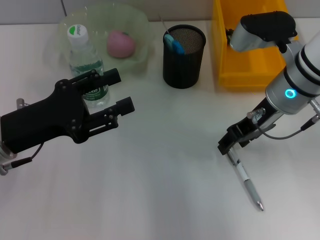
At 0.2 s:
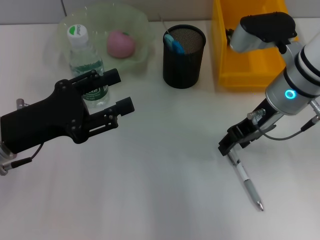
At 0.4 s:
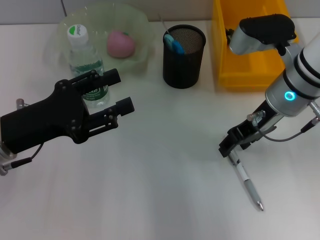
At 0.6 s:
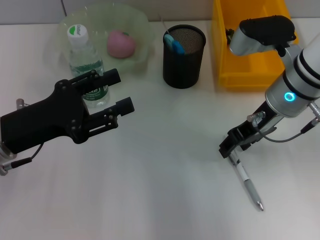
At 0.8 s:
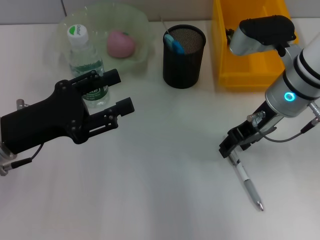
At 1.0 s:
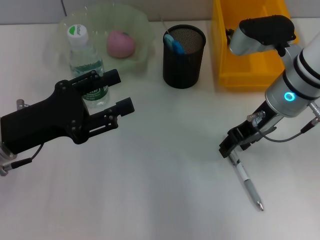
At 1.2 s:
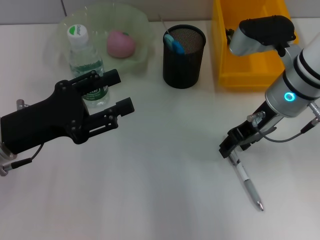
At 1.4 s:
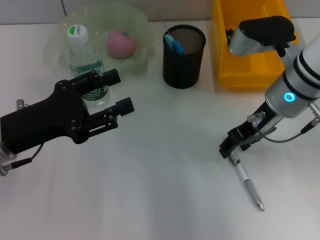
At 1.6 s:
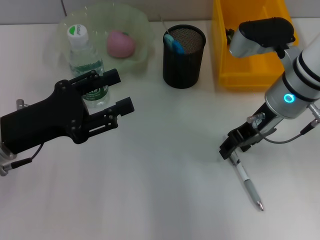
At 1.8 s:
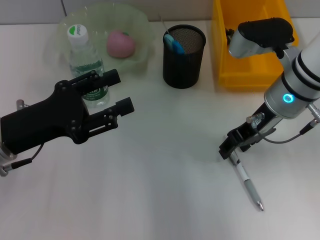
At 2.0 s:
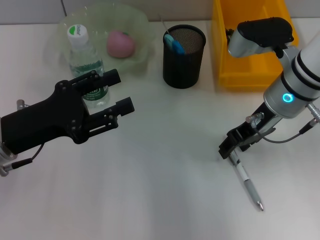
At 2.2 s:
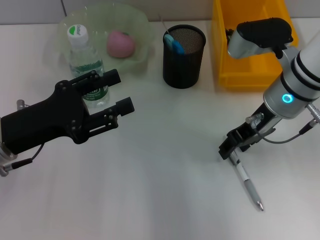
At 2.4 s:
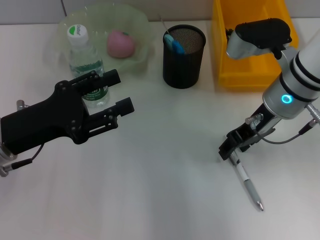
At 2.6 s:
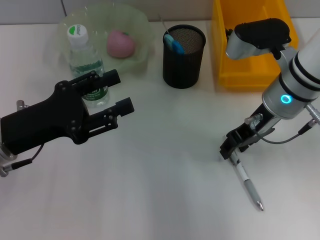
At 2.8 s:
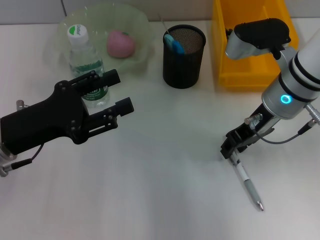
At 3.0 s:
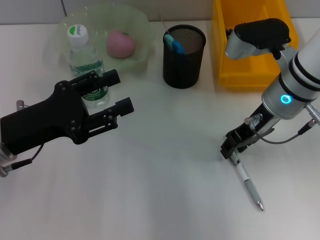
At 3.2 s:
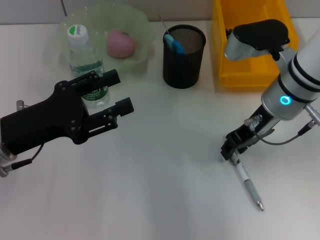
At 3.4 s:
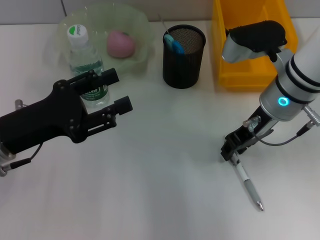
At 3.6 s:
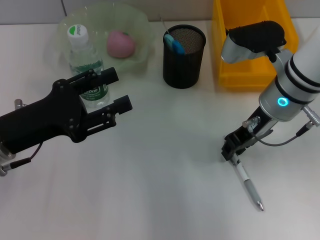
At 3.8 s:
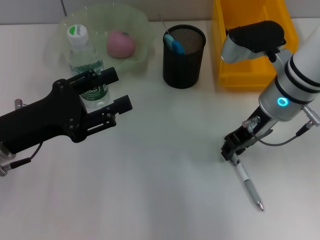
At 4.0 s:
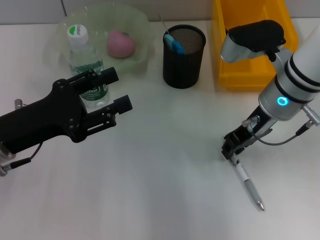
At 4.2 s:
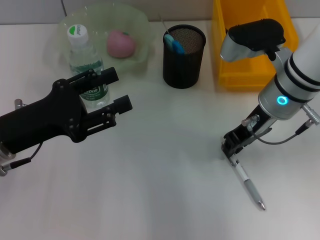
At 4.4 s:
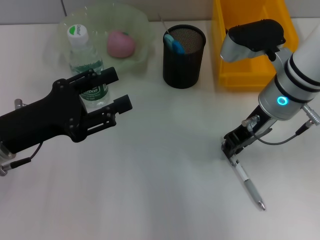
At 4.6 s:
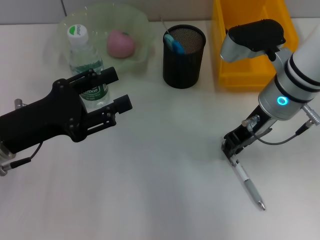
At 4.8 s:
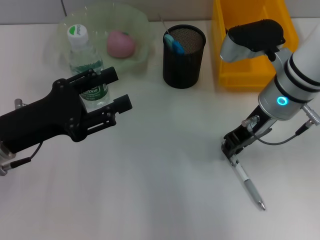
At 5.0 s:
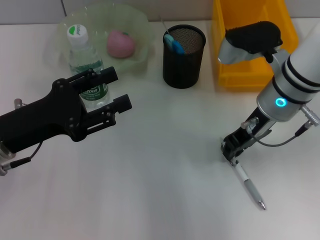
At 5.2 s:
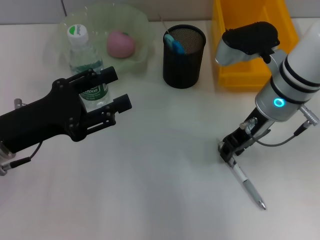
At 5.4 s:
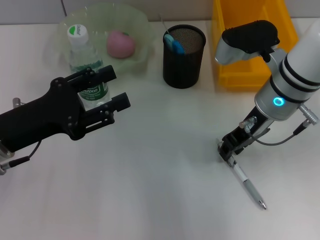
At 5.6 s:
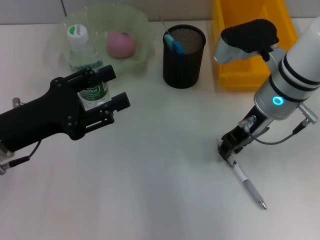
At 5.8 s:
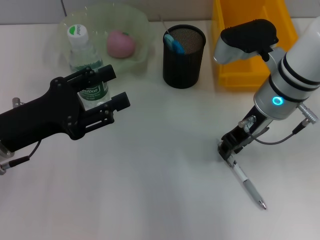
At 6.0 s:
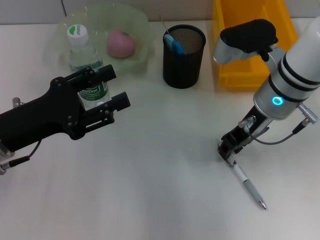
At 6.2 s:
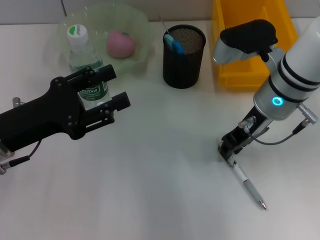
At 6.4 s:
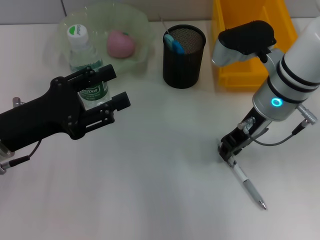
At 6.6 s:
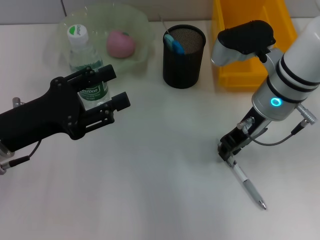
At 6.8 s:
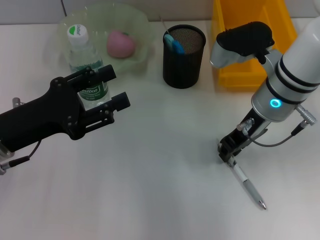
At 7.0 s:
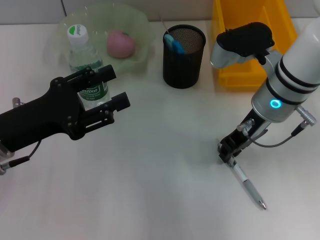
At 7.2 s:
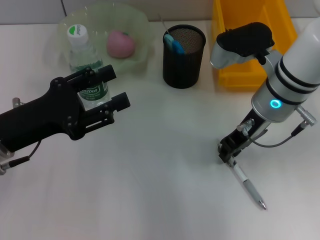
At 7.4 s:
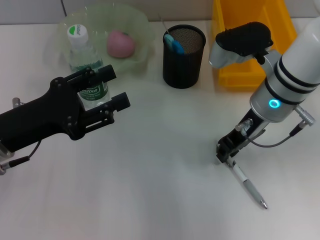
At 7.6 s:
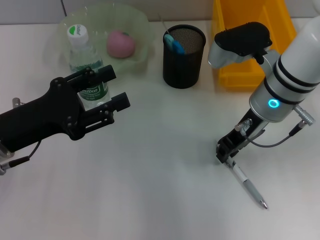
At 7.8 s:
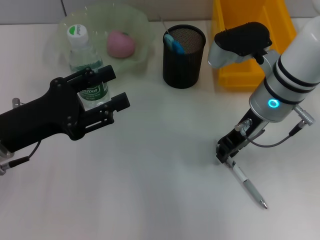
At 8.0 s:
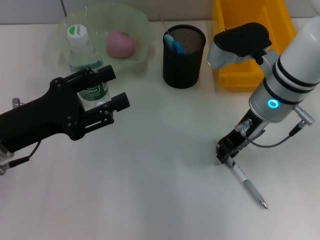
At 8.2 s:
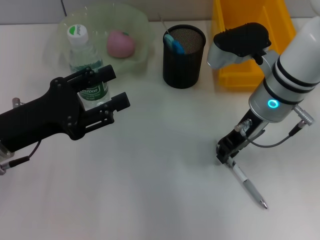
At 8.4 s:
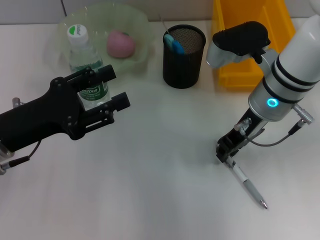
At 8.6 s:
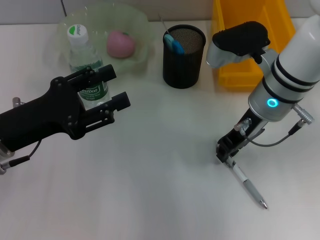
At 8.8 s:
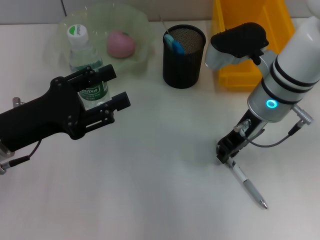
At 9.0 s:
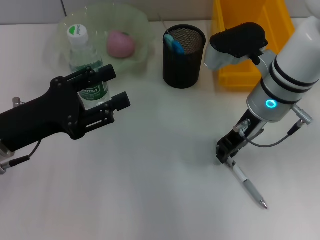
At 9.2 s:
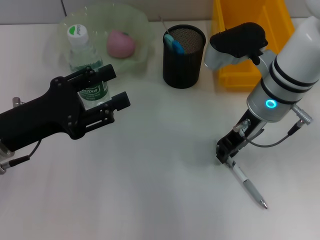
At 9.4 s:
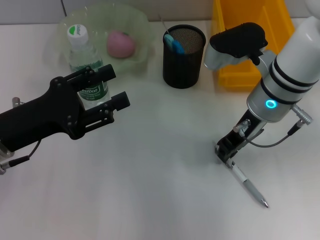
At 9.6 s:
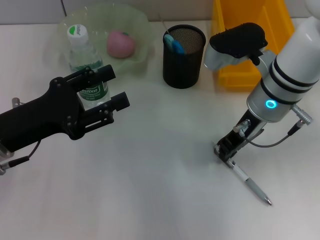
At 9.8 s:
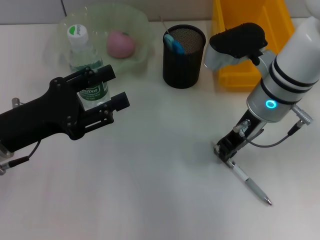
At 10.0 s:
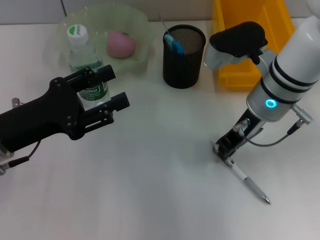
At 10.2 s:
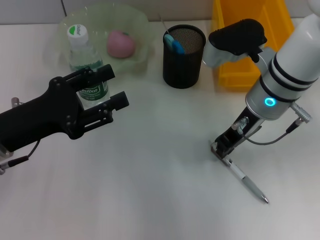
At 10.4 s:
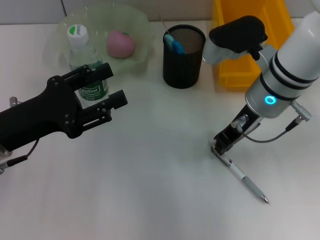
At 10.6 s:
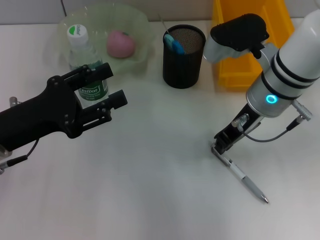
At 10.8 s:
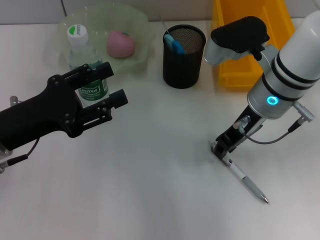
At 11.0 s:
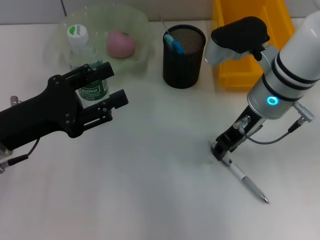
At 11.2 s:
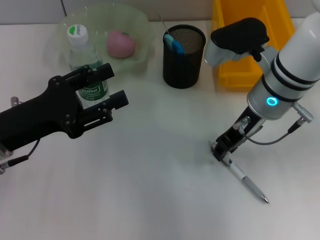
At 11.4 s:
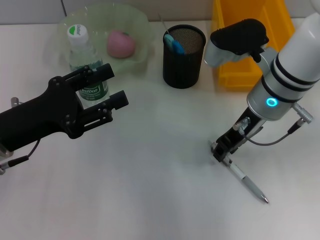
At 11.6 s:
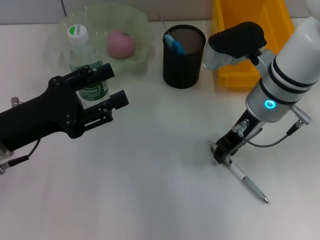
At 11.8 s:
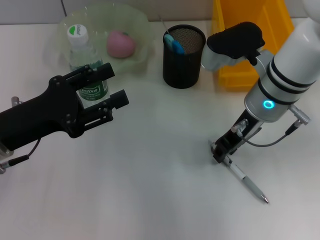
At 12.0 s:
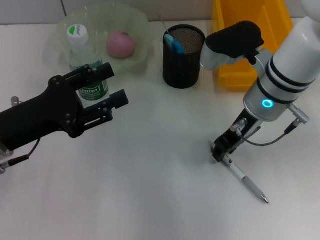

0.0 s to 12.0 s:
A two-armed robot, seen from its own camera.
0.0 to 4.4 s: Both grippers stay put.
4.4 to 7.6 s: Both grippers stay put.
7.6 to 10.4 s: Neither gripper changes place.
10.4 to 12.0 s: The right gripper opens.

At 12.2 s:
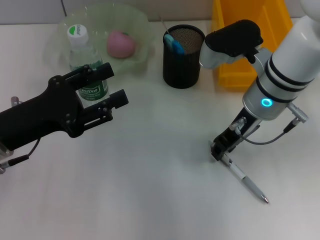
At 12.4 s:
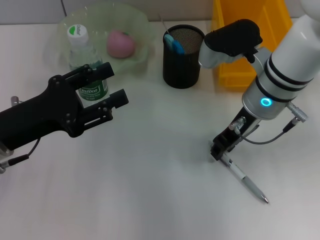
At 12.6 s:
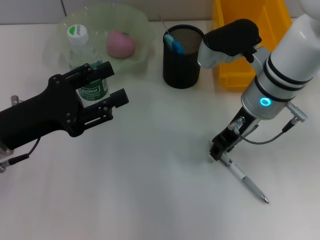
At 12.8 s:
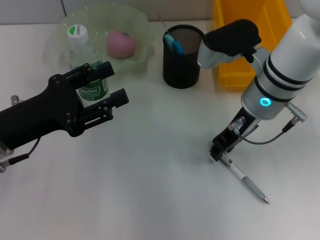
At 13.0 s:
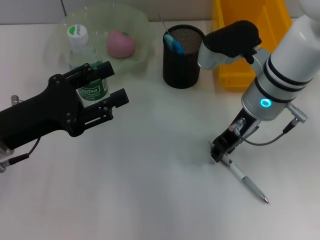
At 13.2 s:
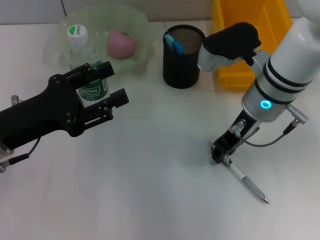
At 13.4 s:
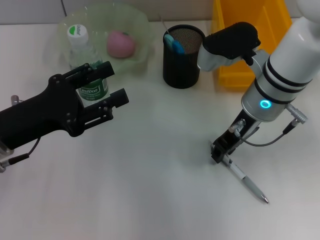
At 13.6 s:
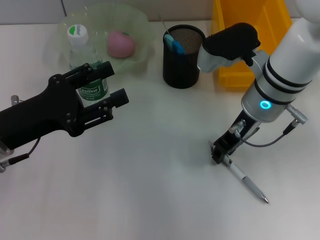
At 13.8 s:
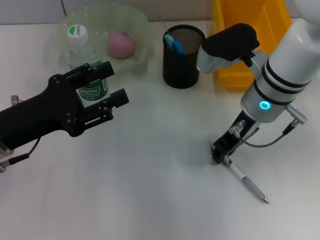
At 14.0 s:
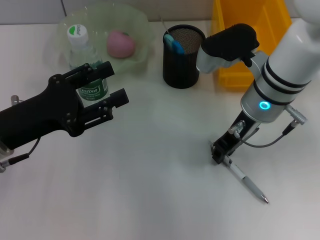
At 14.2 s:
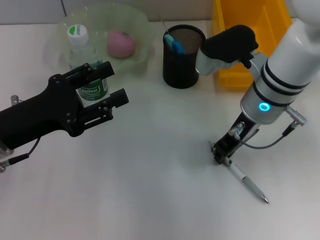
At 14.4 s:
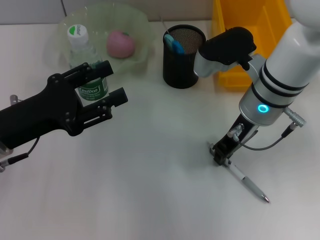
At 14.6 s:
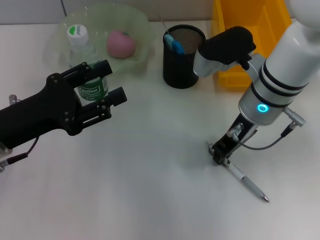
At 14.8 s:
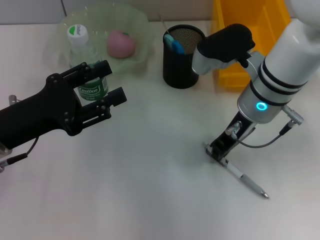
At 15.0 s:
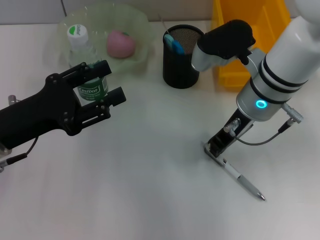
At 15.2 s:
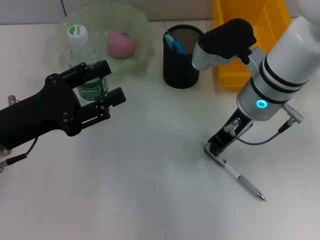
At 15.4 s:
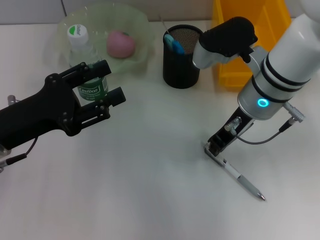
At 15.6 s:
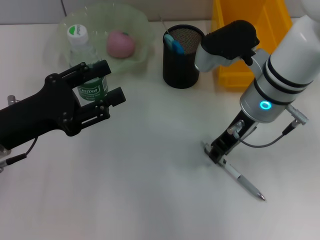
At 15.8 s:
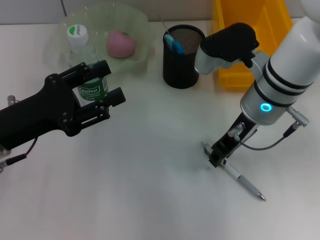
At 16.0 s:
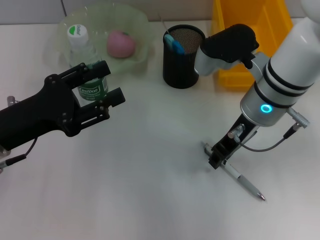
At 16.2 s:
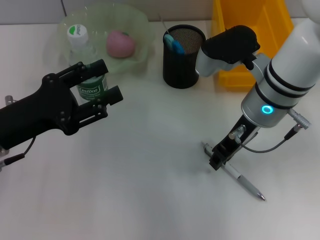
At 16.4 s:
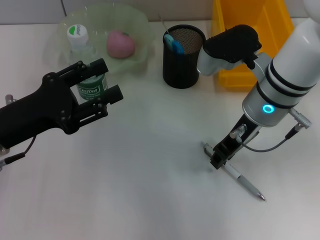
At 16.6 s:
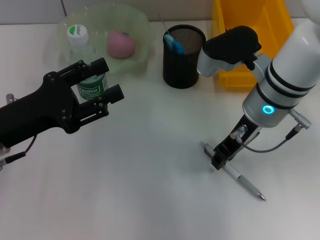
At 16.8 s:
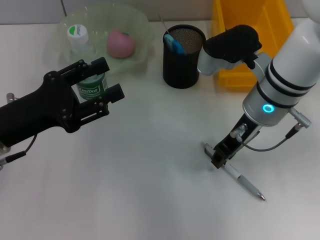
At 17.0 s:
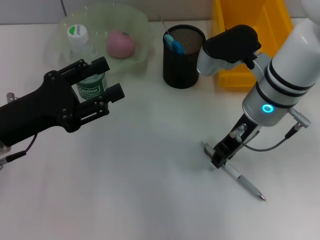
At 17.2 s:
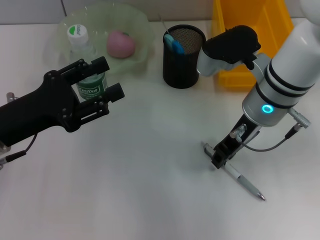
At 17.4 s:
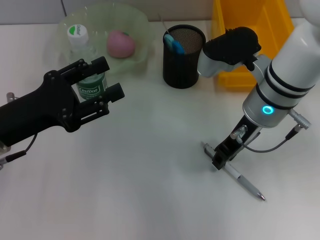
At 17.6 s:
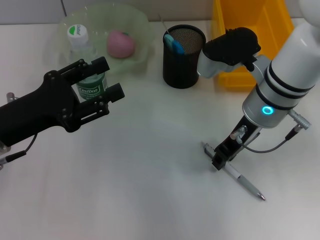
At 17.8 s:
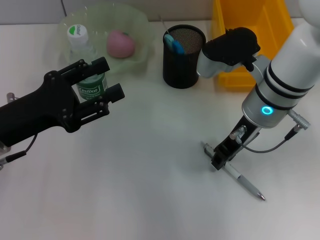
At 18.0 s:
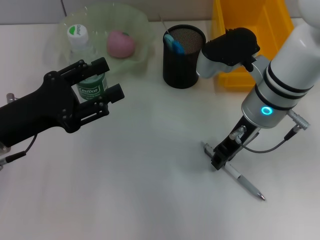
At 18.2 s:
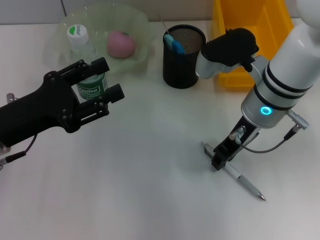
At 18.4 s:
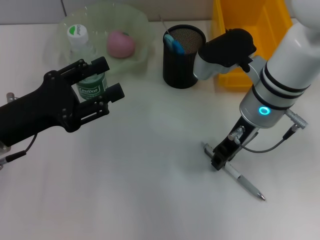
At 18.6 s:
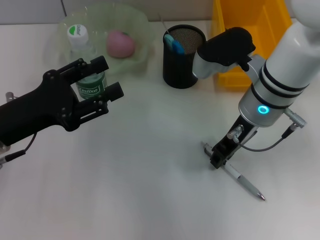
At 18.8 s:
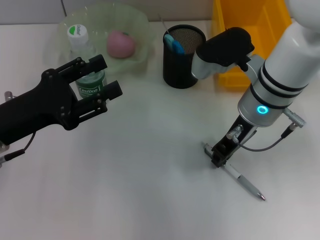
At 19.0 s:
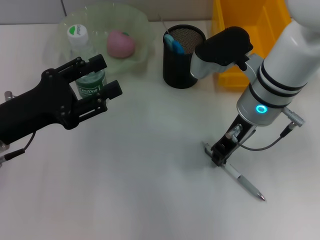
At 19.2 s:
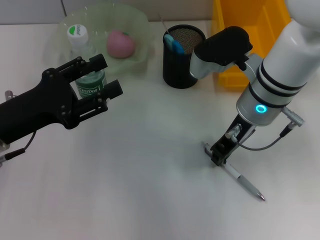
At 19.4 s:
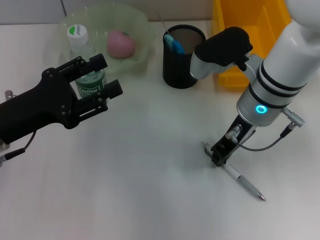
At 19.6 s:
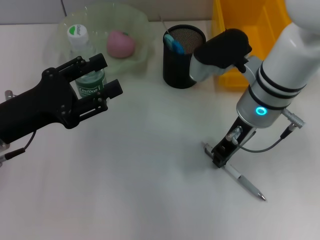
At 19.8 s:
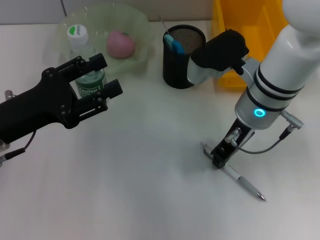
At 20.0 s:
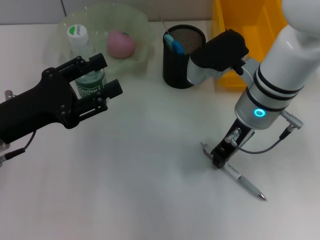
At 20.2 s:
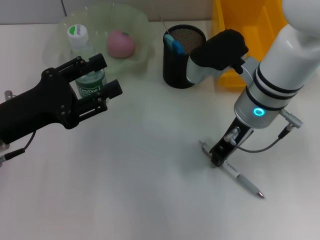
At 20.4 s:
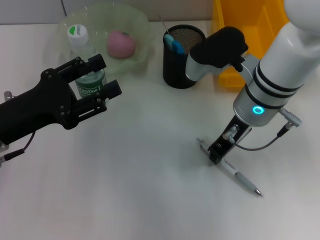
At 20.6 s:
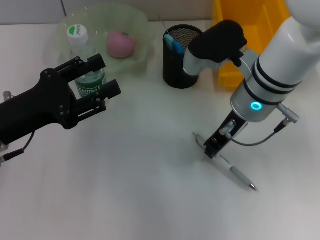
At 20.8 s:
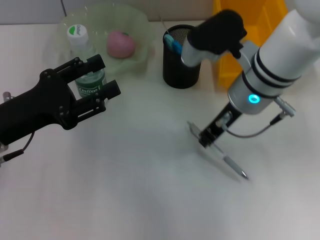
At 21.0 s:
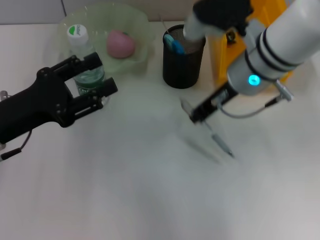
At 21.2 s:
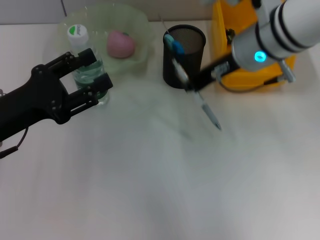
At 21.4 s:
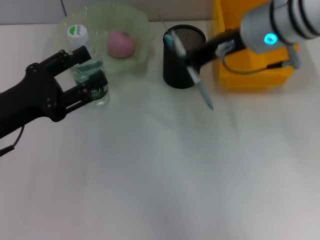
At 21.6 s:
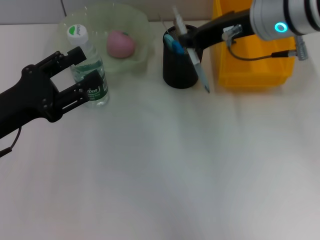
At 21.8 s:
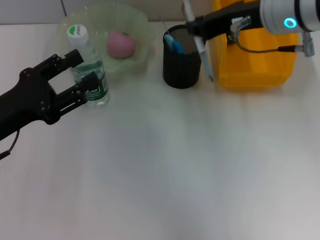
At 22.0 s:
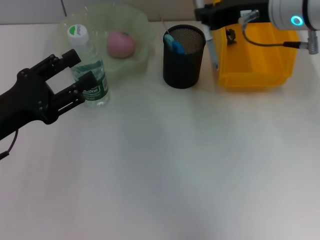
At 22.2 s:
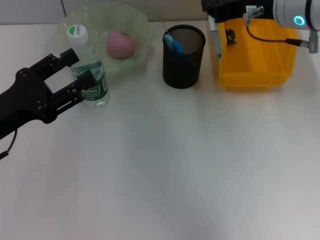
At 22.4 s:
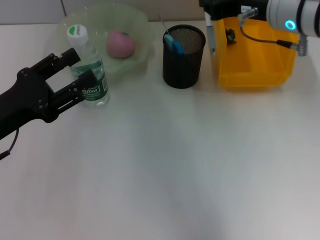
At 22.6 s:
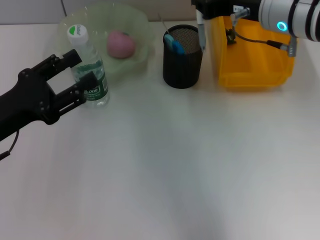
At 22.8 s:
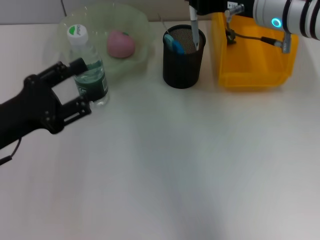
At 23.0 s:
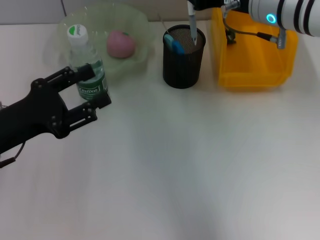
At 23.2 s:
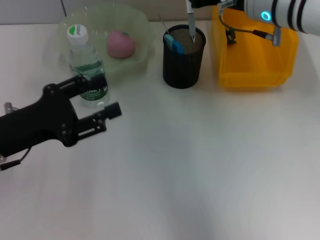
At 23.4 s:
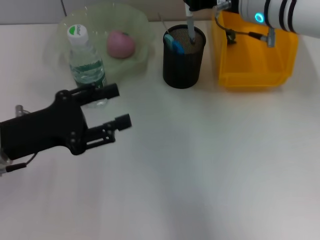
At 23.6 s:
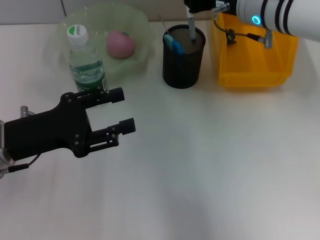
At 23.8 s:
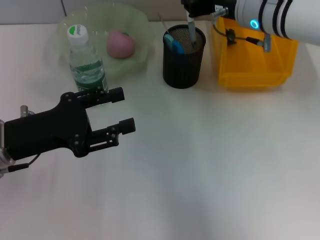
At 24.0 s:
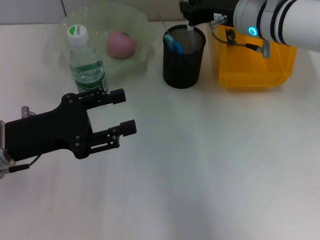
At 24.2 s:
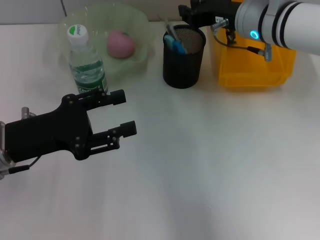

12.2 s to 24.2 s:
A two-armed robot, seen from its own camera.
Step, 12.2 to 19.4 s: Grab the gray spring-action pen with the right hand.
12.2 to 13.8 s: Both grippers stay about where they are.
13.8 to 15.2 s: The right gripper closes.
15.2 to 16.6 s: The right gripper opens its fingers.
16.6 to 19.8 s: The two grippers keep their place.
19.8 to 21.2 s: The right gripper moves upward, approximately 5 cm.
22.6 to 24.2 s: The grippers move only a little.
